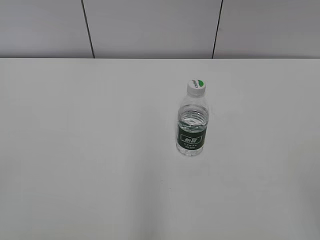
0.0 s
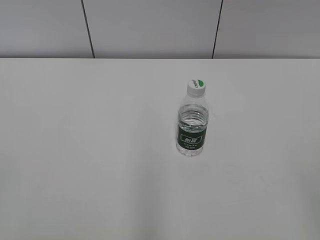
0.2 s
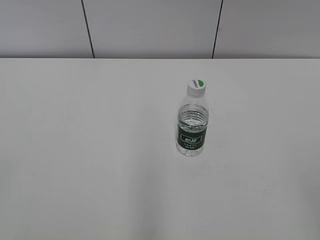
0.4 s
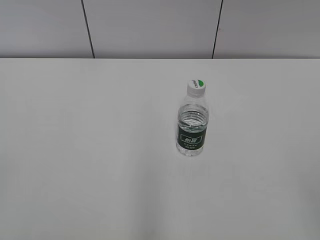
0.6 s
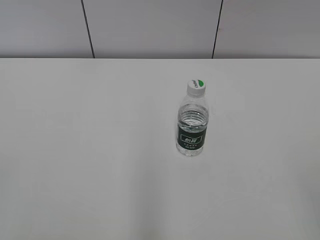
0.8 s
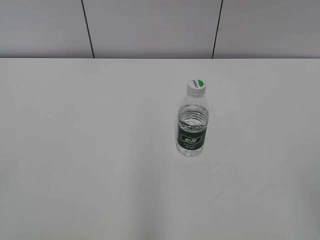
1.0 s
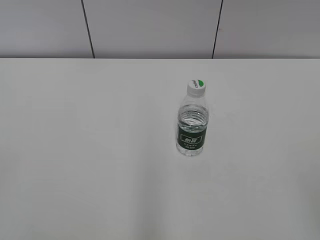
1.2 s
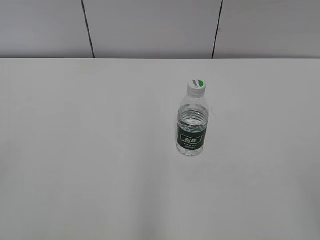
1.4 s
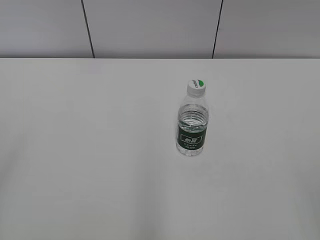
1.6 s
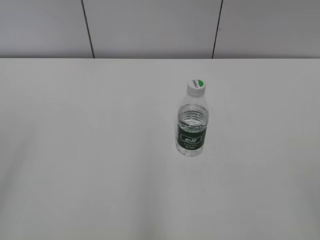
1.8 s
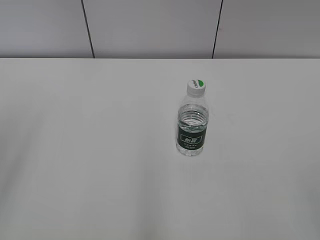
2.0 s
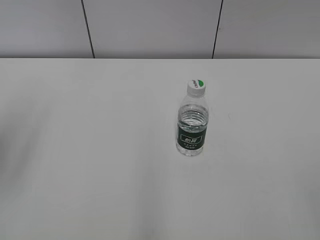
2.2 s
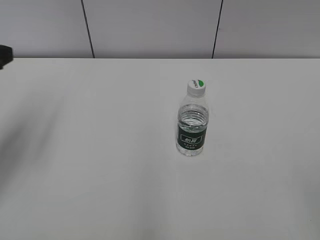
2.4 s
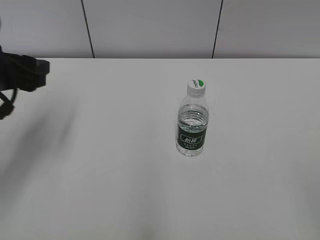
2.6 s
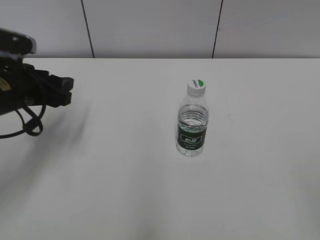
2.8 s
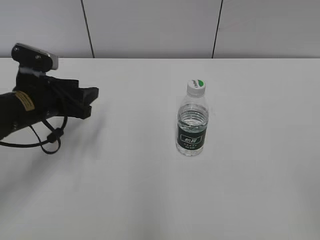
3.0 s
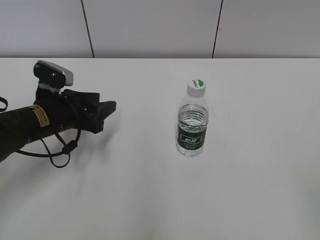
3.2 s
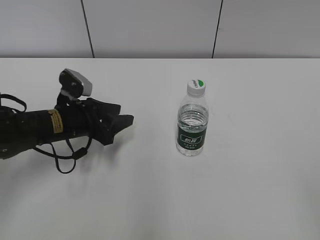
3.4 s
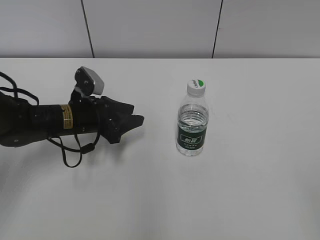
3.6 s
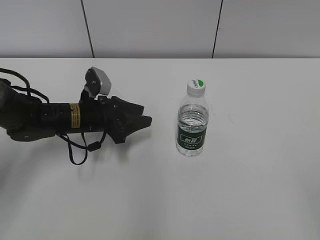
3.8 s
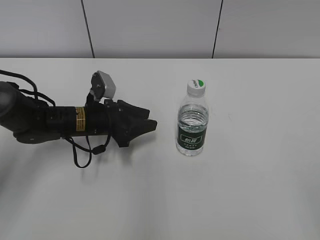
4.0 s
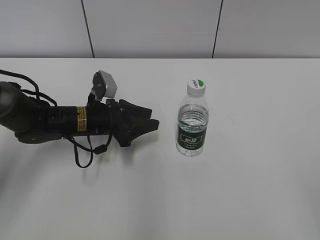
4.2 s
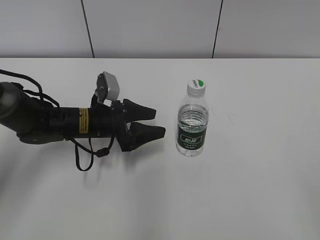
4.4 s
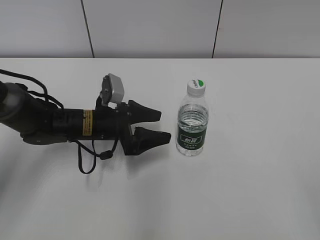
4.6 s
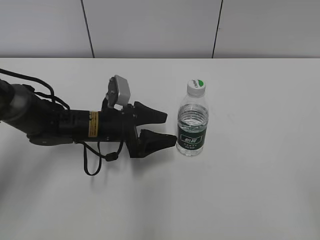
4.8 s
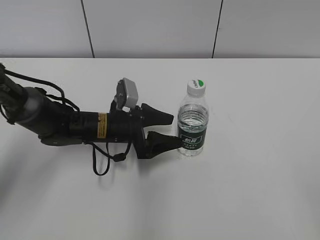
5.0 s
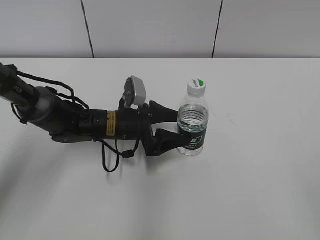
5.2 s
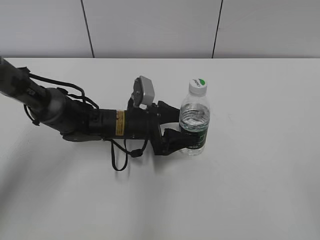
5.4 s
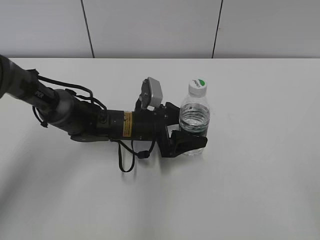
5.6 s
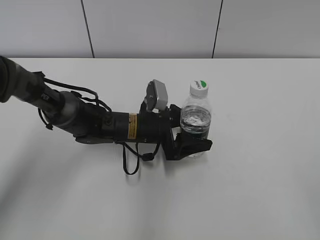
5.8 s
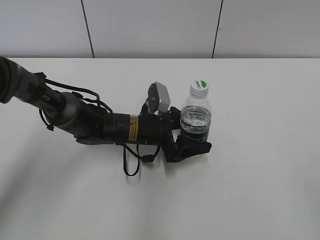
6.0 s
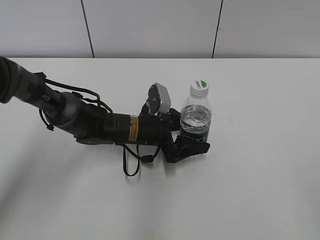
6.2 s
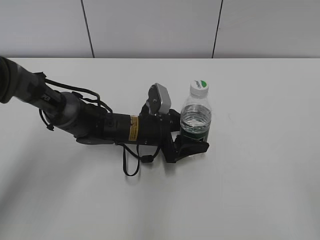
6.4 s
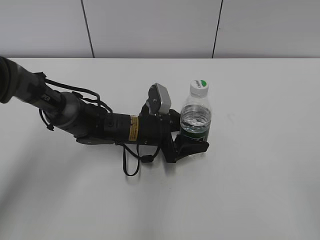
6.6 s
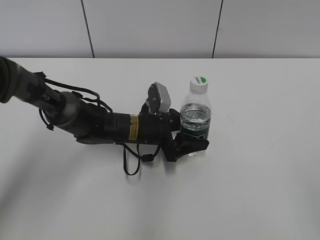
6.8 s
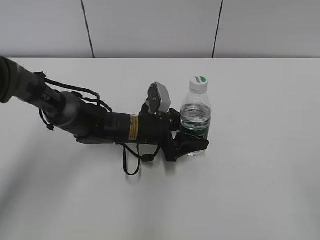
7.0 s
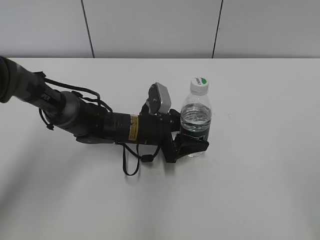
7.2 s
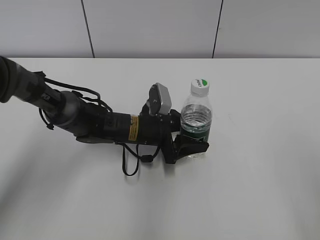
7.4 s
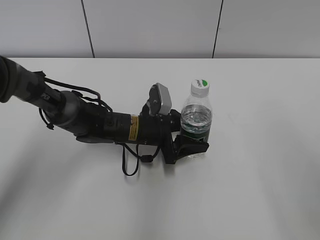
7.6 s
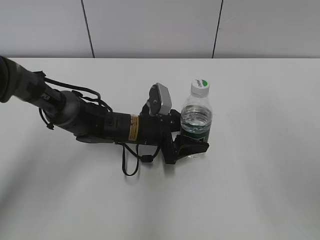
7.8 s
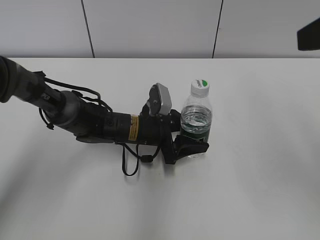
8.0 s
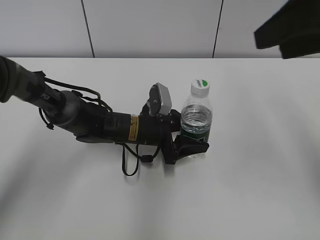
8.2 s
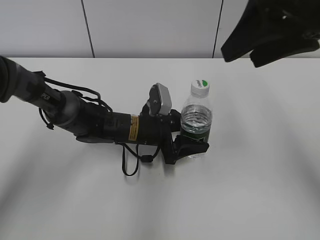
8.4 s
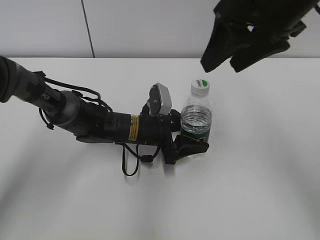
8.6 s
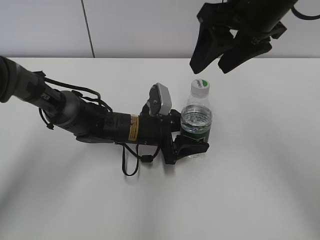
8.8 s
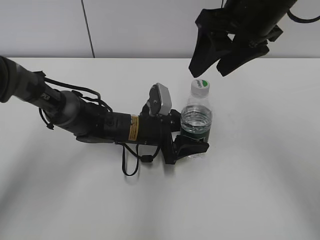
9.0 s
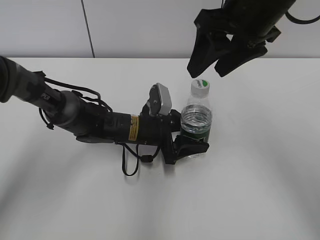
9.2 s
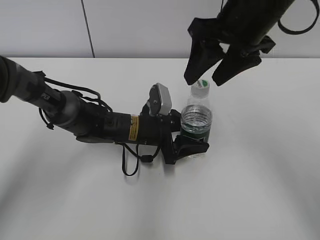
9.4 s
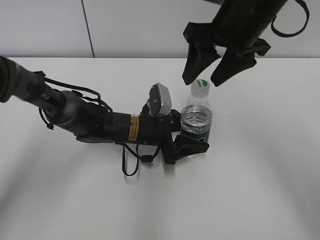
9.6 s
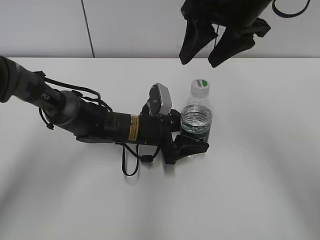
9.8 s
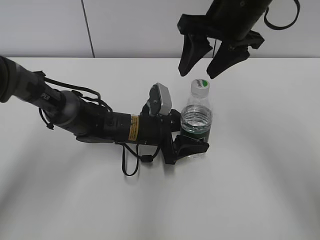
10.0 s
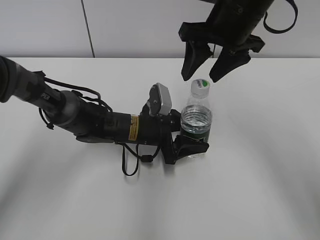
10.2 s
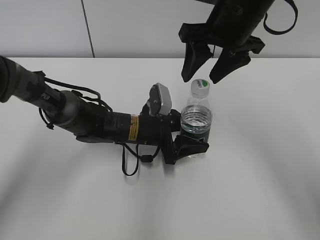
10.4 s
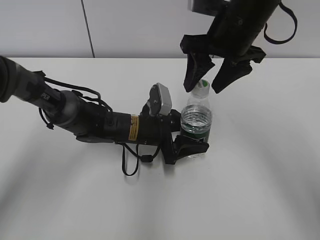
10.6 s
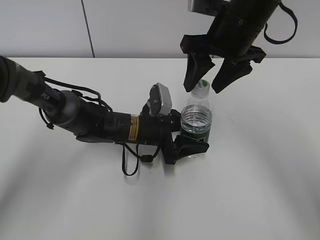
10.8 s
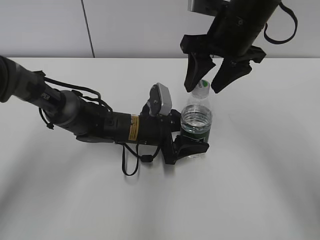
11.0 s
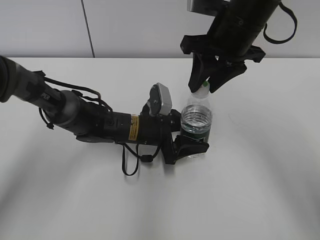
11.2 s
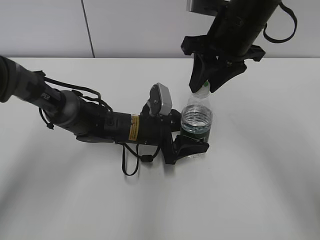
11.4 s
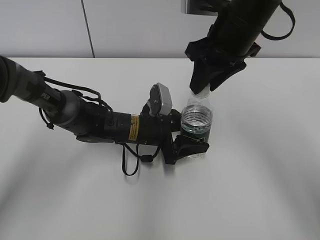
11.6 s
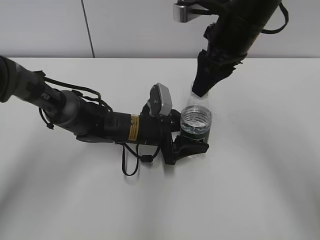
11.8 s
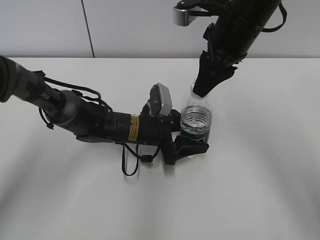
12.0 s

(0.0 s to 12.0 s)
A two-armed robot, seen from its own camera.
Step, 0.0 s - 7.2 s: Grab the C'estbon with the left hand.
1.6 s - 3.0 s: The left gripper is displaced forward and downward by about 35 cm, and closes.
3.0 s - 4.4 s: The left gripper moves to the right and downward, roughly 10 cm, and opens.
4.4 s - 6.0 s: The left gripper moves to the right, about 10 cm, and opens.
6.0 s - 7.6 s: The right gripper is displaced forward by about 10 cm. The left gripper closes its fingers.
7.6 s - 9.0 s: The right gripper is displaced forward and to the left by roughly 25 cm.
9.0 s - 10.4 s: The right gripper changes place by about 5 cm.
10.4 s - 12.0 s: The right gripper closes.

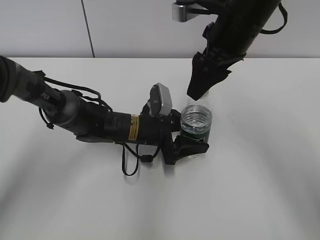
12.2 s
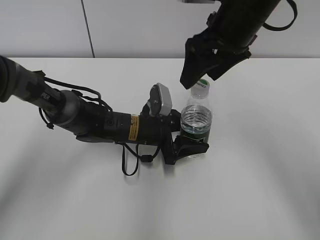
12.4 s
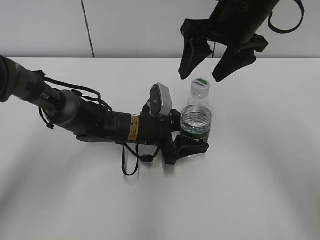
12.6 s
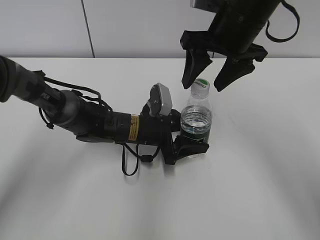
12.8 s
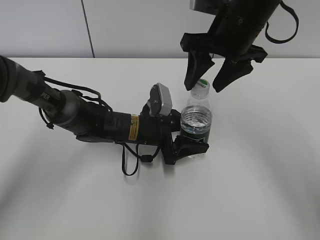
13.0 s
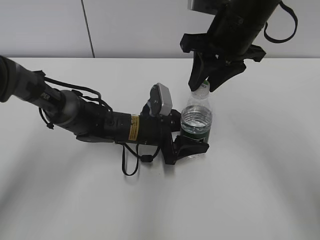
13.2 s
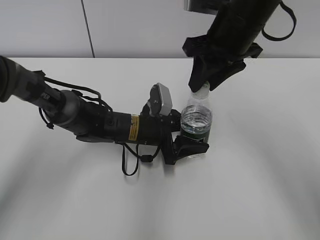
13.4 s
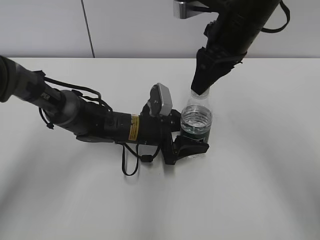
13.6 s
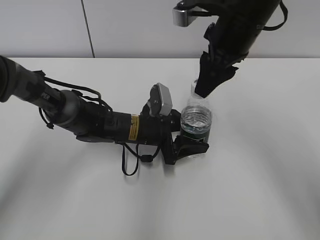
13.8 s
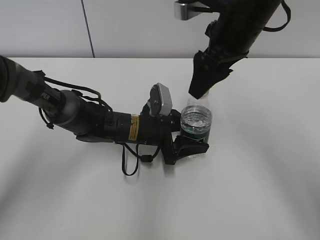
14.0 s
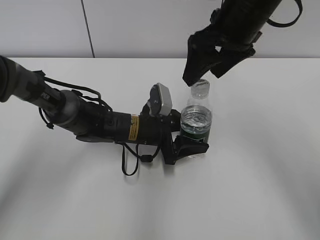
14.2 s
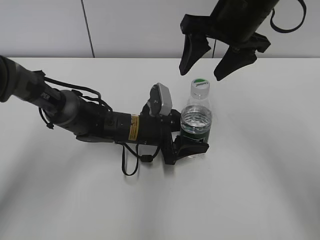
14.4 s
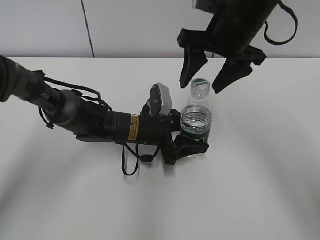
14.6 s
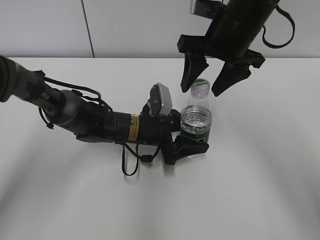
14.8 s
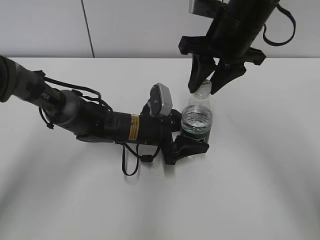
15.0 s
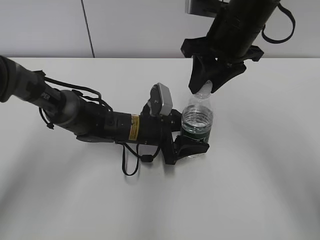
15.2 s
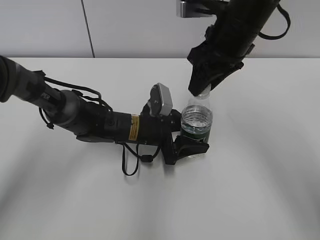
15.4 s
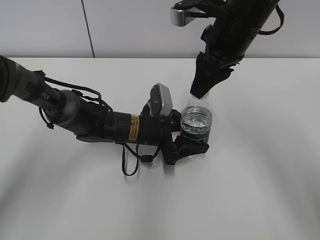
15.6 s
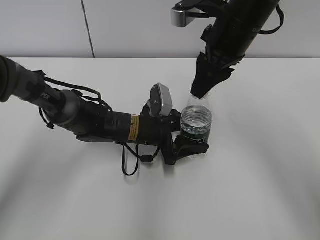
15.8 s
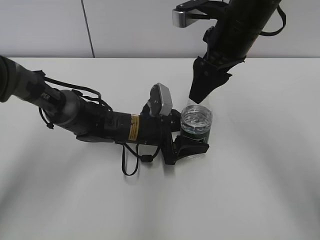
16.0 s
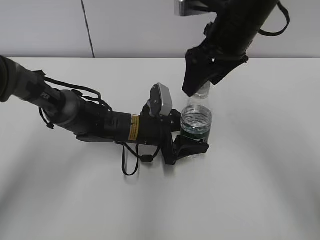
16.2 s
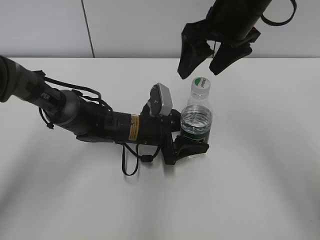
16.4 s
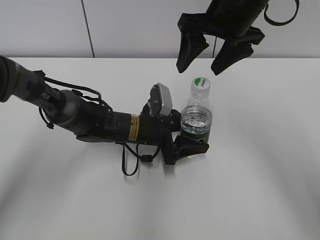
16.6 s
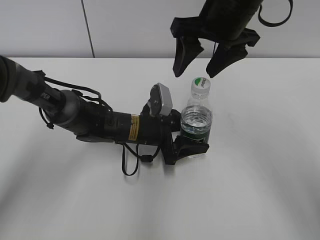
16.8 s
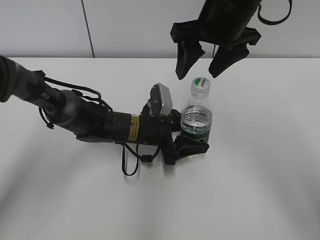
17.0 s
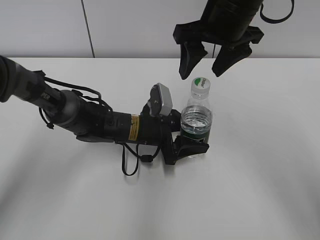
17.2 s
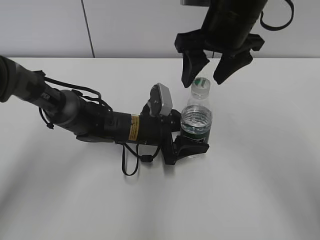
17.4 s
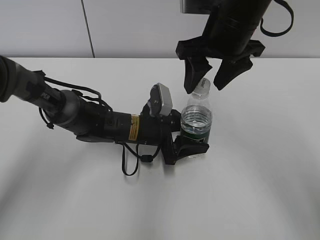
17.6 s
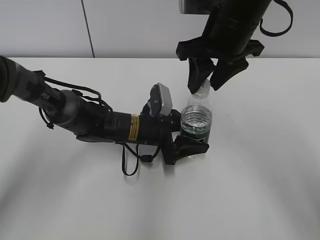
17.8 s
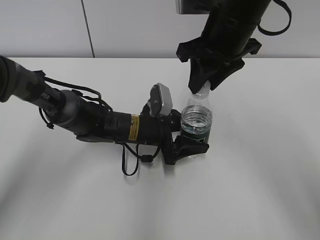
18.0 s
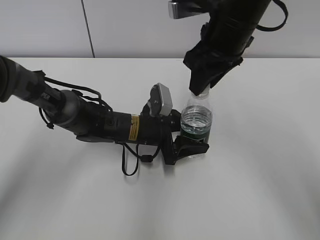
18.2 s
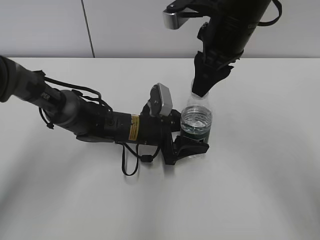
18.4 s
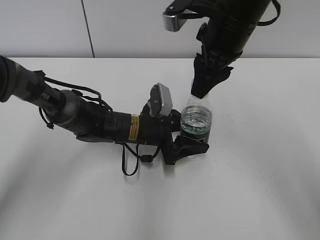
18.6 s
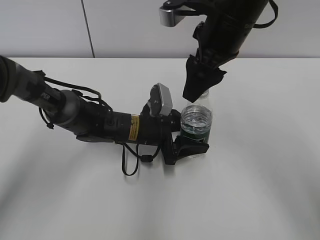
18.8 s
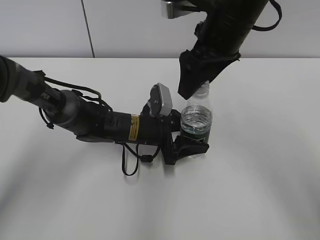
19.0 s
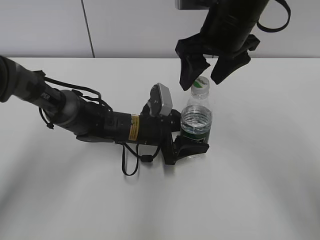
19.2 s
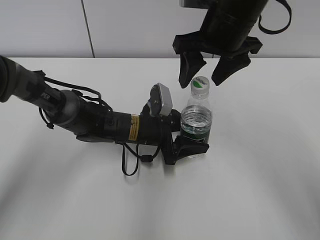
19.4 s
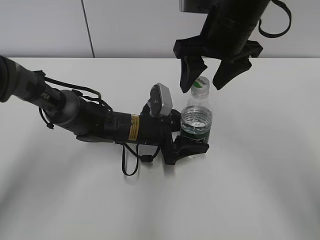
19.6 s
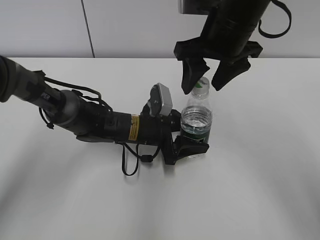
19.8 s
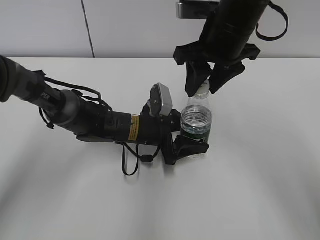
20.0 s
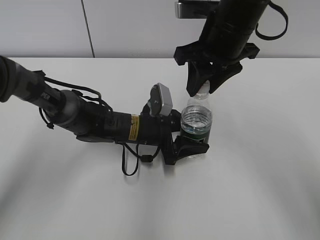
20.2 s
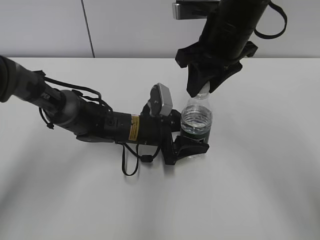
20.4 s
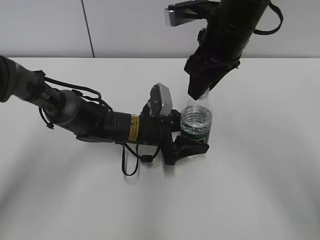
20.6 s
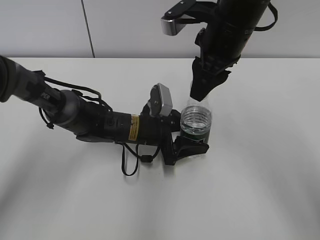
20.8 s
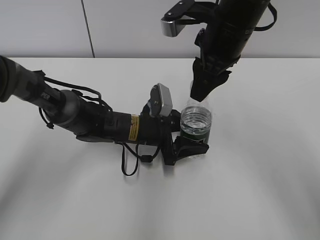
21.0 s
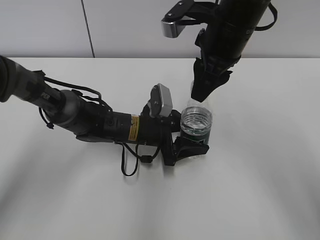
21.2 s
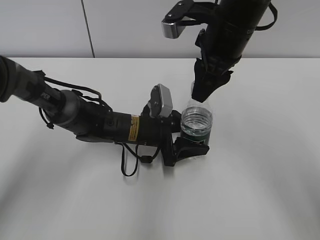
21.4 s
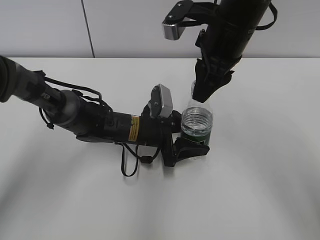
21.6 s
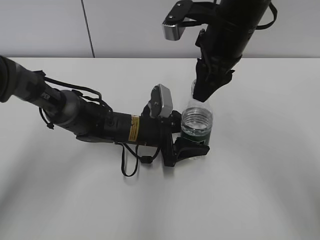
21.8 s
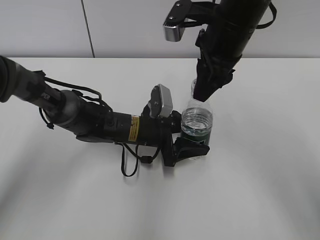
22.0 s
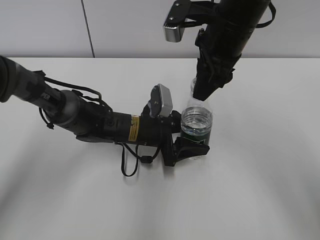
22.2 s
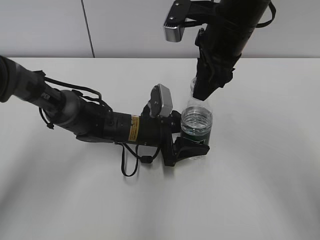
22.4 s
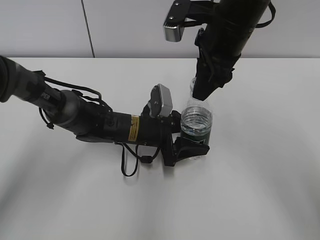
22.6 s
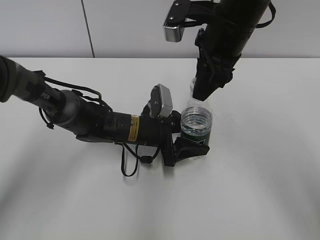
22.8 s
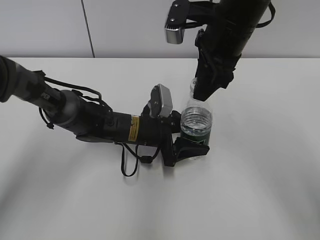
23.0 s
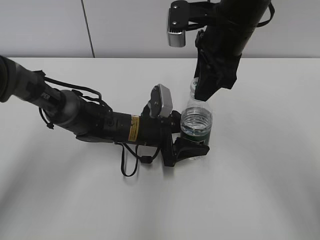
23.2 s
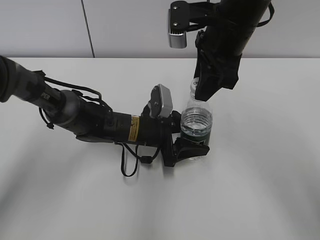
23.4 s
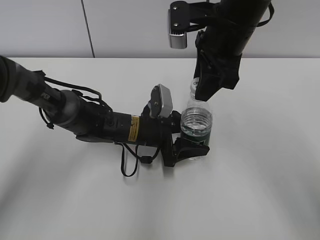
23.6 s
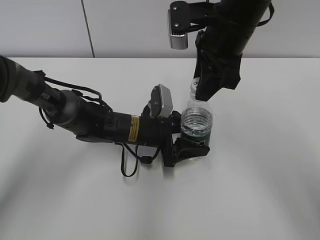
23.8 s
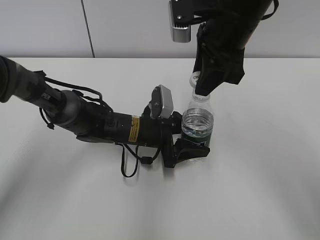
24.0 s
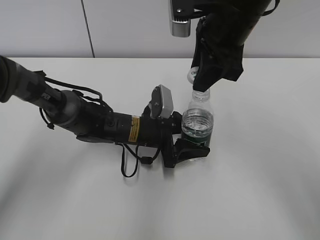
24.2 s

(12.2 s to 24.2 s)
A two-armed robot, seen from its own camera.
12.2 s - 13.8 s: The right gripper closes up.
13.8 s - 15.2 s: The right gripper opens, then closes once more.
15.2 s - 16.6 s: The right gripper opens its fingers.
16.6 s - 18.2 s: The right gripper closes its fingers.
18.2 s - 19.8 s: The right gripper opens up.
19.8 s - 21.2 s: The right gripper closes up.
21.2 s - 22.6 s: There are only small adjustments of the grippers.
22.6 s - 24.2 s: There are only small adjustments of the grippers.
